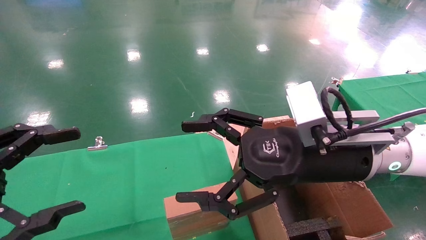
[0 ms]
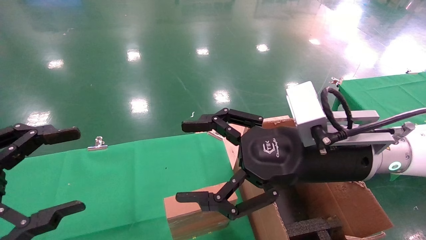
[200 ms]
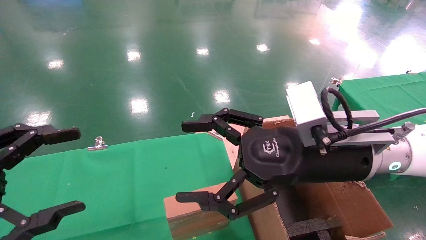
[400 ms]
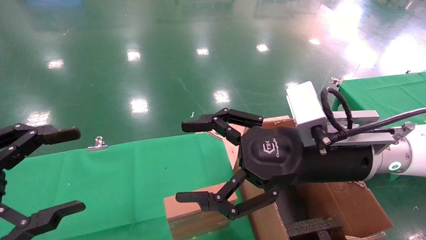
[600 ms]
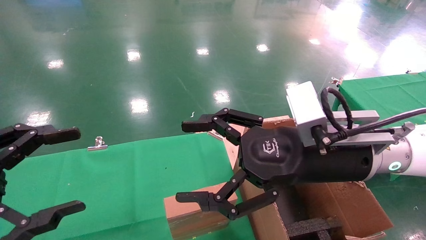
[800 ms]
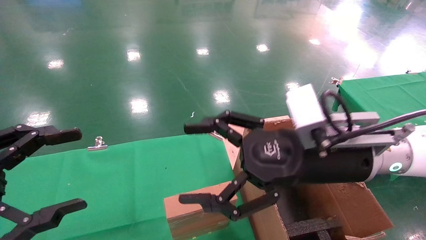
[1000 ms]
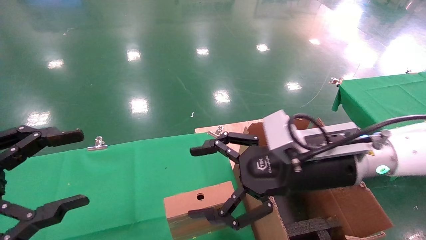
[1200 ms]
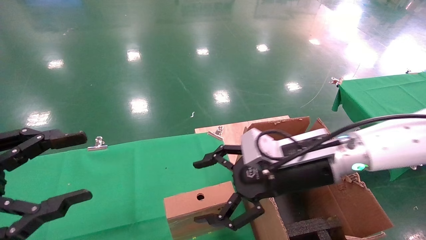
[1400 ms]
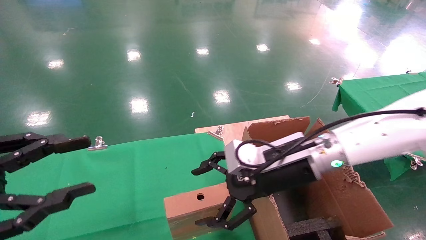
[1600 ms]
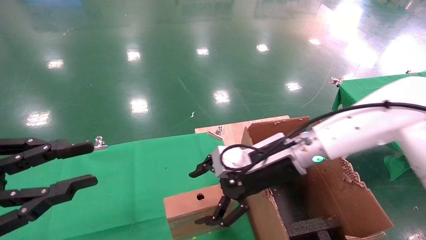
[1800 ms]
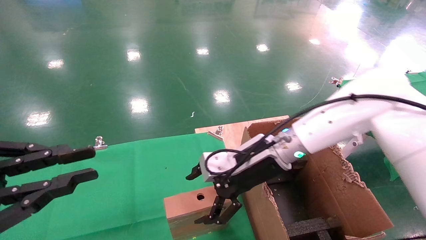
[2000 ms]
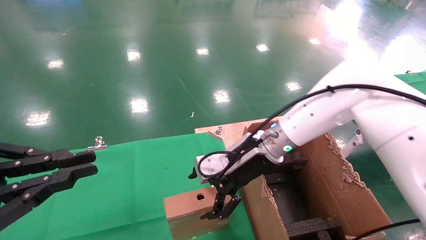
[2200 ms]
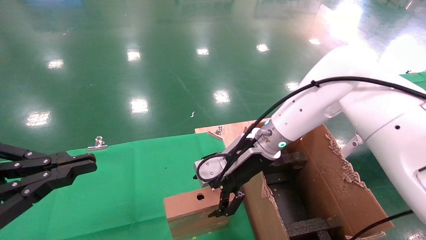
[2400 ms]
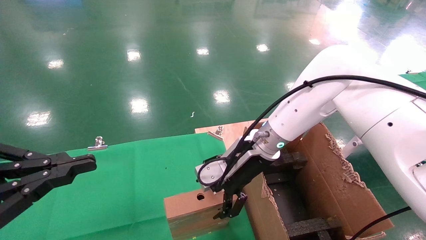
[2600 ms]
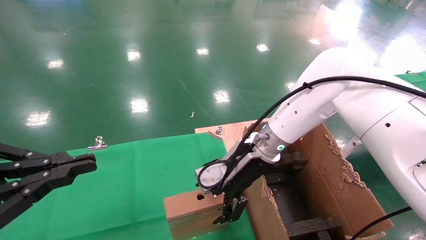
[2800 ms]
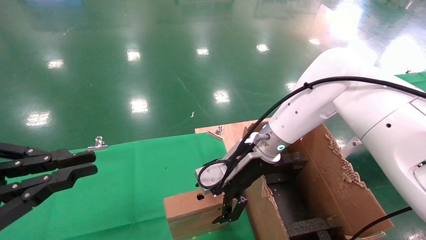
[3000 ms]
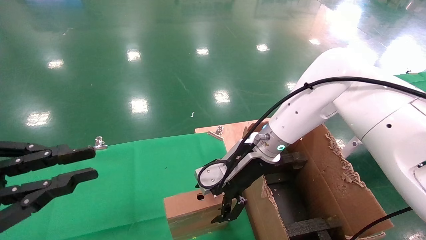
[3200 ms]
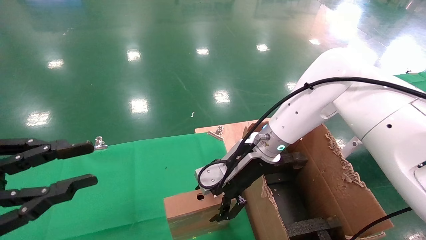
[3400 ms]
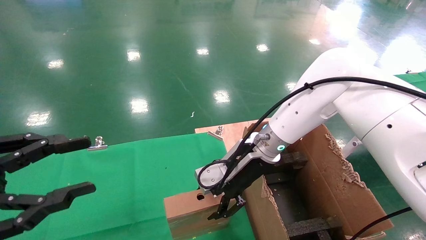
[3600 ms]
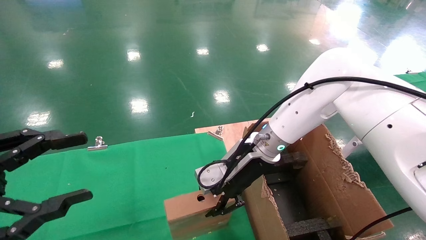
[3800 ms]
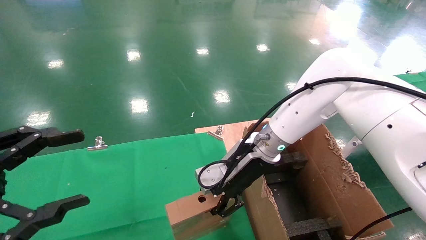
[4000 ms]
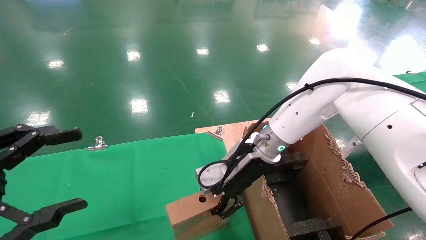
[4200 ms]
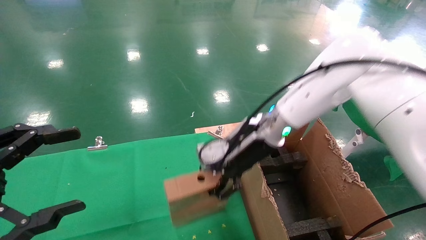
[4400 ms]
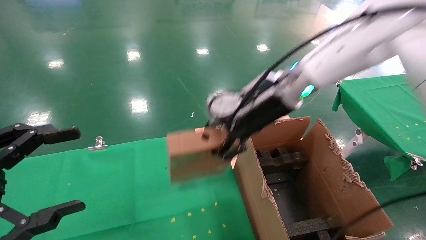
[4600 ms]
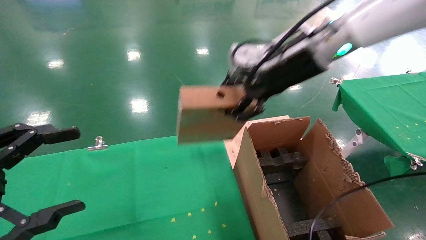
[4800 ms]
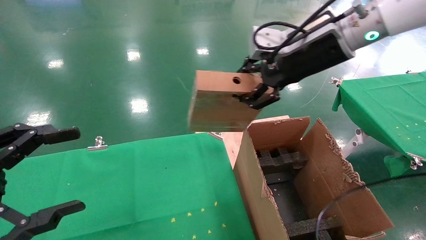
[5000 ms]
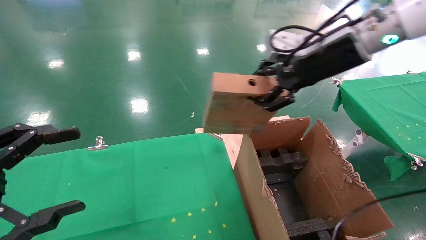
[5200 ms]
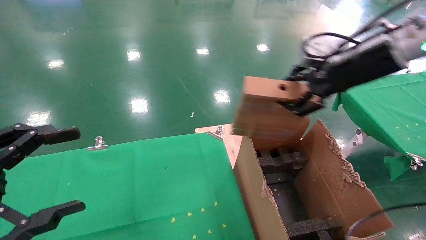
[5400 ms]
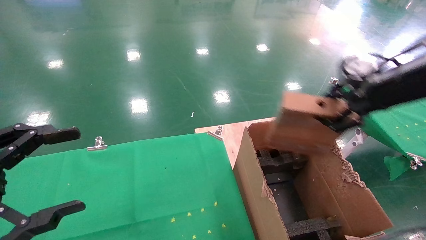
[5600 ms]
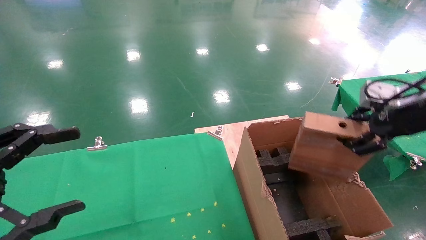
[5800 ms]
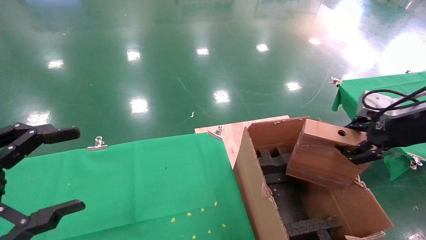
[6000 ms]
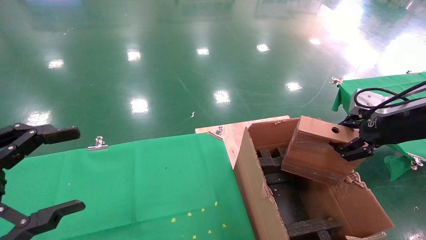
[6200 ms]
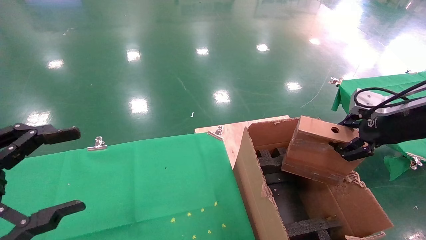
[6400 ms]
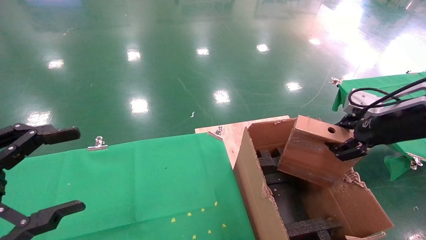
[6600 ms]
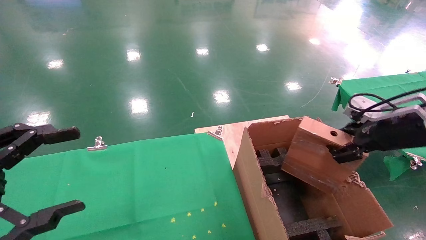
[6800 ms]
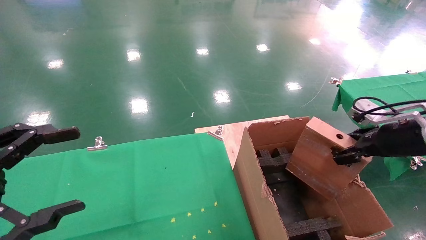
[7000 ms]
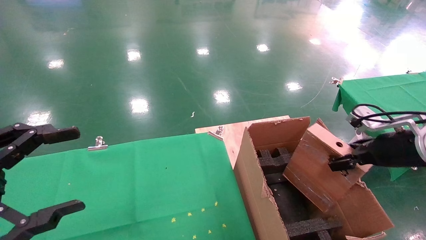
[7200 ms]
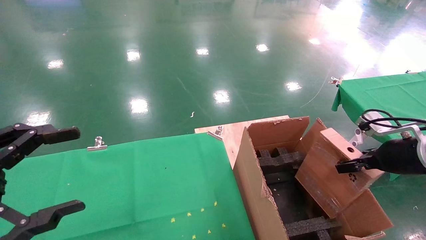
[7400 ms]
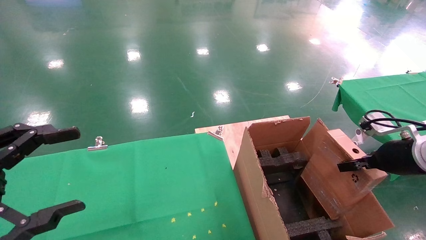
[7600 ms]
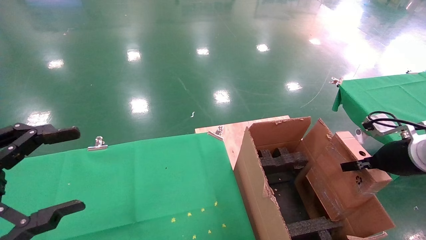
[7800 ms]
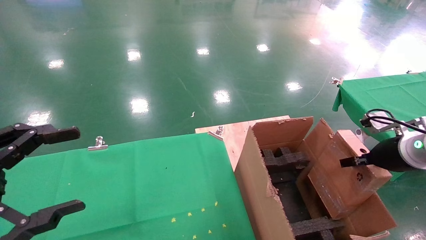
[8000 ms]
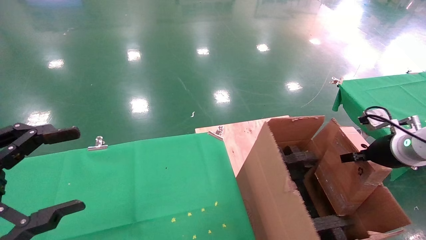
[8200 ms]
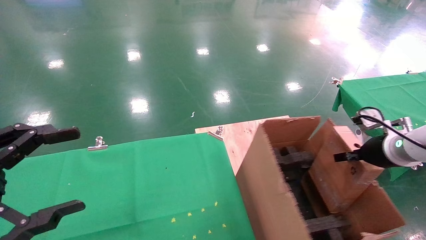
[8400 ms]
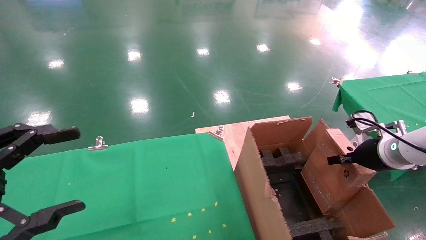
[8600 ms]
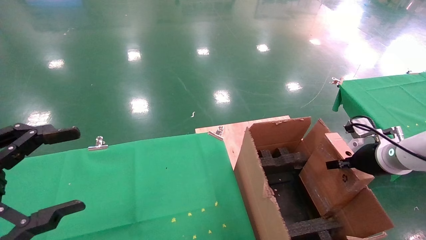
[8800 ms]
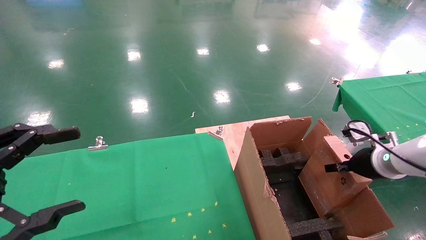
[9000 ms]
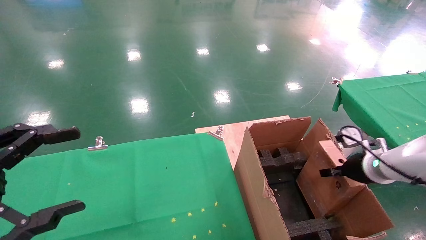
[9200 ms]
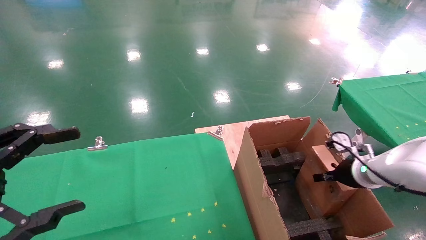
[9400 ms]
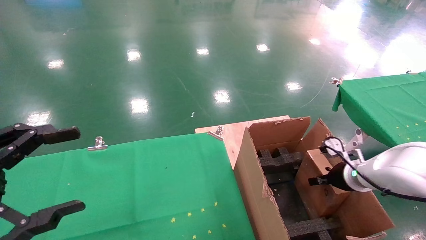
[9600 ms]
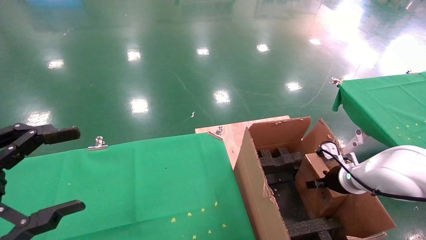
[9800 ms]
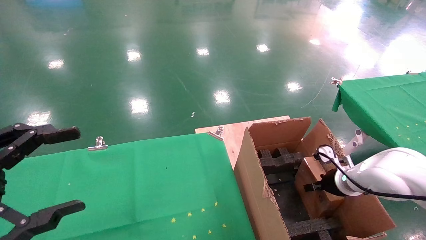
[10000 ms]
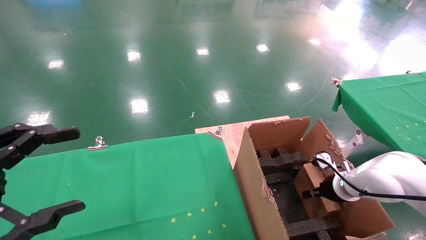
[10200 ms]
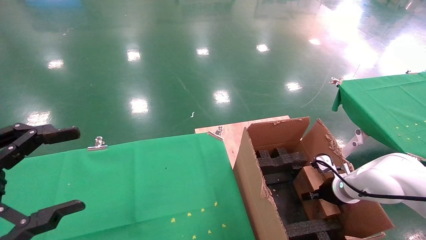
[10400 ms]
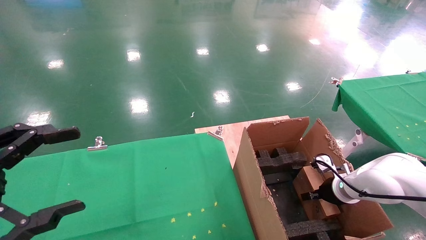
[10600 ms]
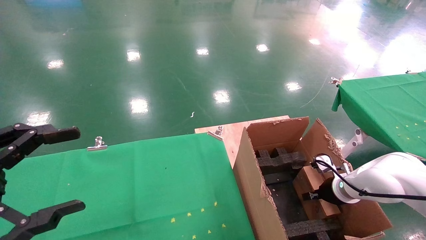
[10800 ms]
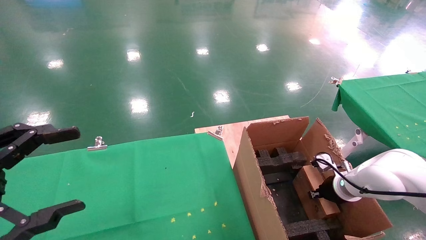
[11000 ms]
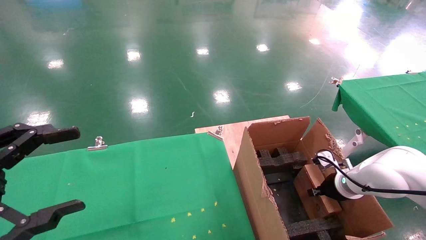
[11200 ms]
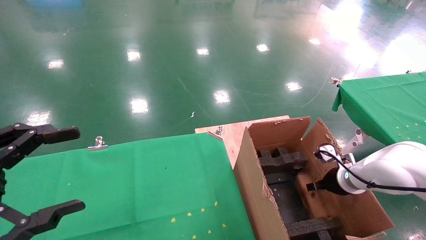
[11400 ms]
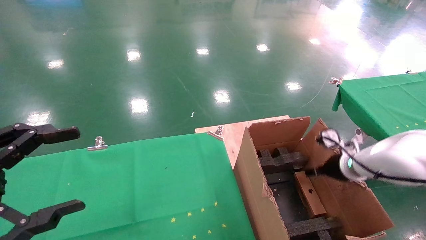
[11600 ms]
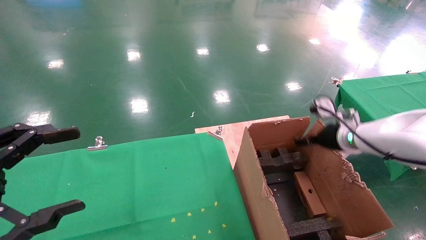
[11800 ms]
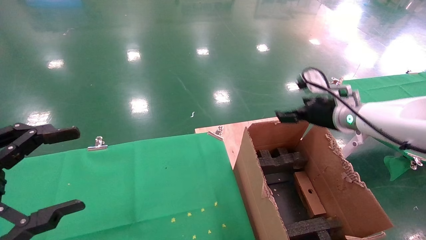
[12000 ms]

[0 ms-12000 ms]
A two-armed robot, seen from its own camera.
Task of the whole recording: using a robotic arm to pick up a cardboard box and palace it the carton.
Step, 1200 ms to 4000 ms: Pick up the mouse and the power cord paper box.
Step, 4200 ms to 11800 ms: Place the mouse and the power cord paper box into the container.
0 ms to 1600 ms: The right gripper shifts some 10 cm forward and downward. The left gripper closes.
1600 ms to 3000 ms: The left gripper closes its fingers. Meanwhile the right gripper moves forward, some 5 cm.
3000 ms to 4400 ms: The left gripper opens up, while the right gripper goes some 5 cm upward, and closes.
4400 ms to 6000 ms: The right gripper goes approximately 30 cm to the right and backward.
6000 ms to 7600 ms: The right gripper goes roughly 10 cm downward.
7600 ms to 9000 ms: The right gripper goes roughly 5 cm forward.
9000 ms to 10400 ms: The right gripper is displaced downward and forward by some 15 cm.
10400 ms to 12000 ms: The right gripper is displaced upward by approximately 20 cm, and opens.

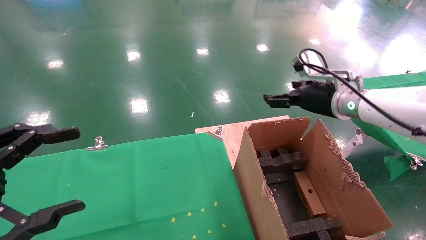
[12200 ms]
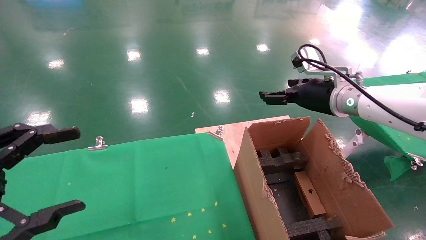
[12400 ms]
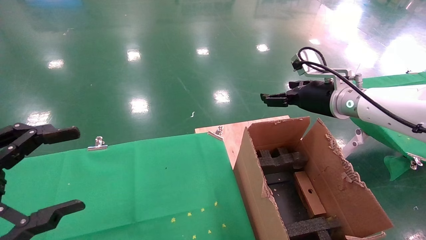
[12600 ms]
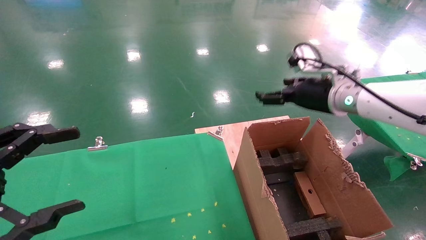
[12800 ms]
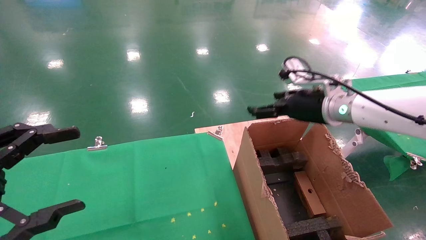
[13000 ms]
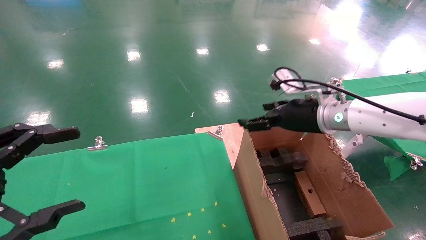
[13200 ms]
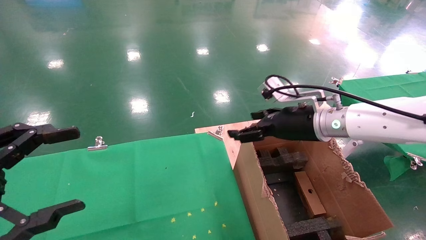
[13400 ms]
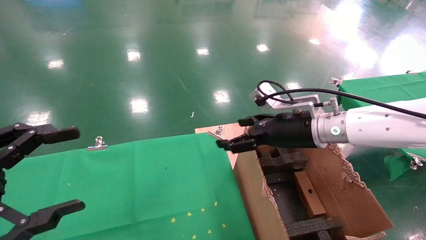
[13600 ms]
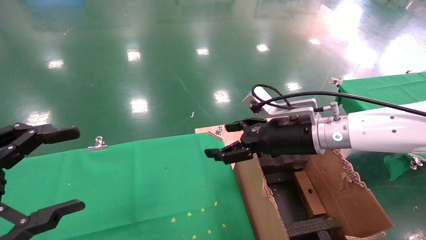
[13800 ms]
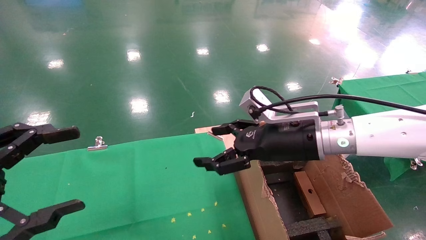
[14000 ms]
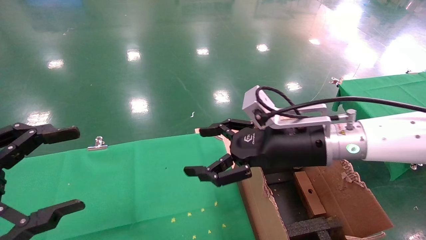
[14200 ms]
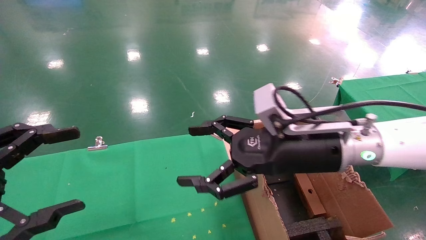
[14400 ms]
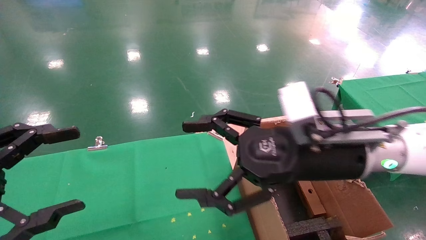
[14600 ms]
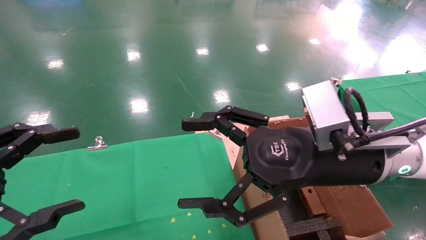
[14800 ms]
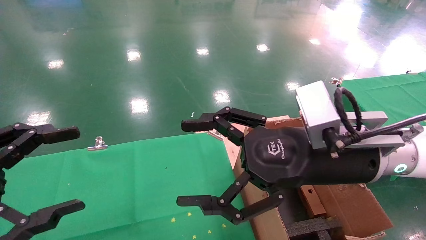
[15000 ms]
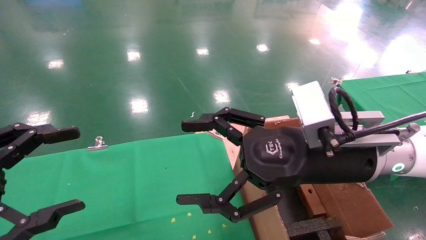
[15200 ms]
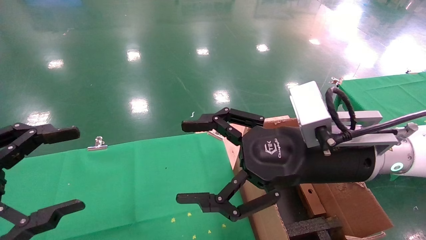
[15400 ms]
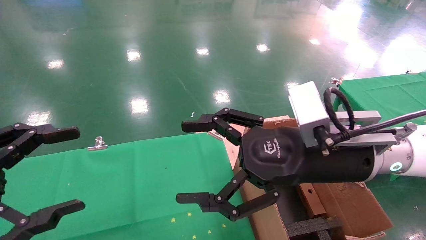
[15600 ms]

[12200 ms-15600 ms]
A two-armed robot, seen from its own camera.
Task of the whole recording: using a robotic arm to pick up a cardboard box and palace it the carton.
12200 ms to 13800 ms: The right gripper travels to the left and backward by roughly 10 cm.
13800 ms to 15600 ms: The right gripper moves backward, approximately 10 cm.

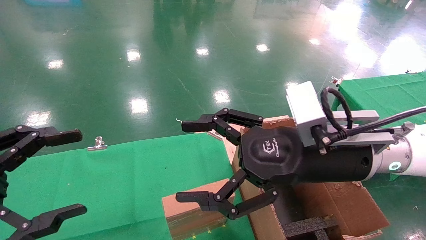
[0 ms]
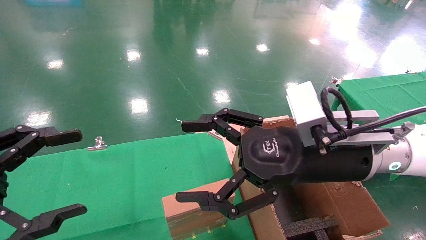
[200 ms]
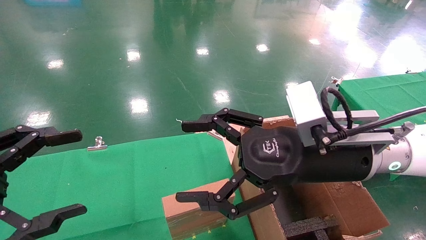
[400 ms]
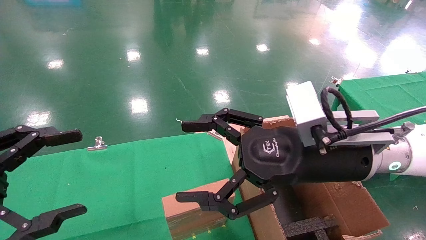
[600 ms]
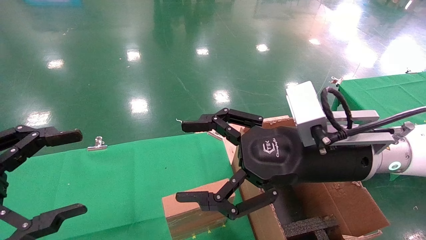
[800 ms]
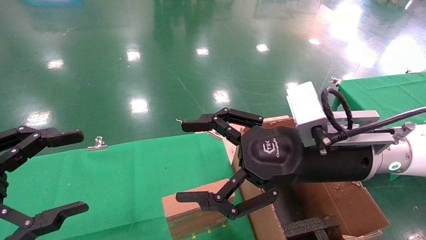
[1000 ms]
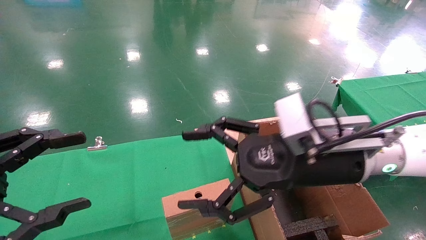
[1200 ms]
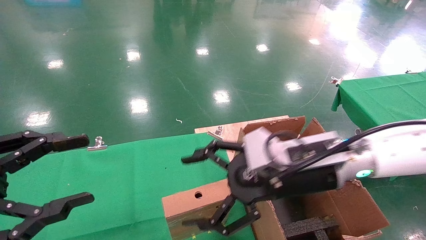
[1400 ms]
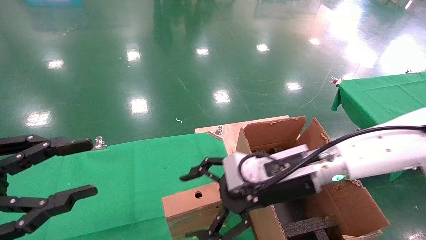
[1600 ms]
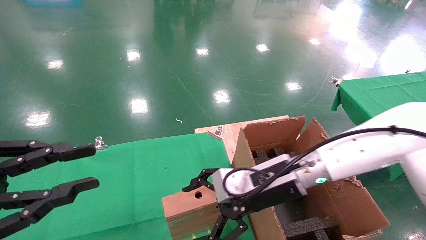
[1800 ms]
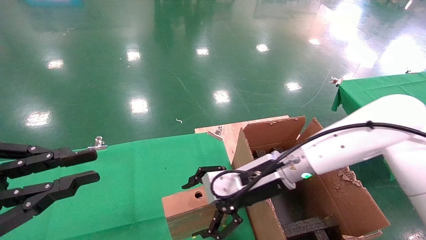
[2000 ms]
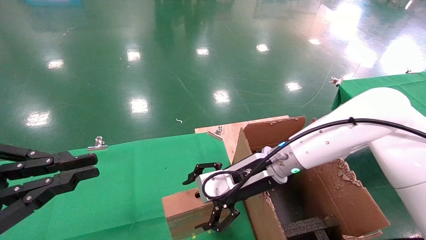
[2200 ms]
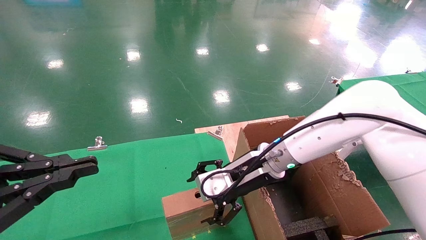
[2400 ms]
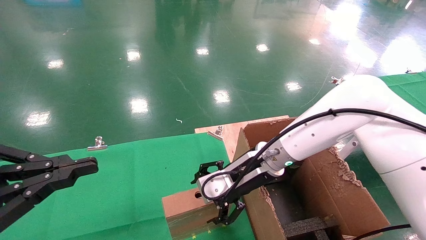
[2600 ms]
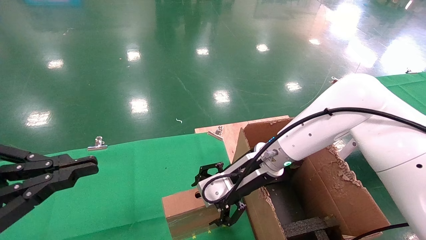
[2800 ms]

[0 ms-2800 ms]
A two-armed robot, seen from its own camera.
Task of the whole recording: using a robotic arm to pick up a cardboard box and palace it the carton.
0 ms to 1400 ms: The right gripper shifts by roughly 5 cm.
1400 ms to 2800 ms: The right gripper moves forward, some 10 cm. The left gripper closes its fingers.
